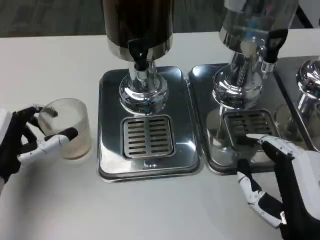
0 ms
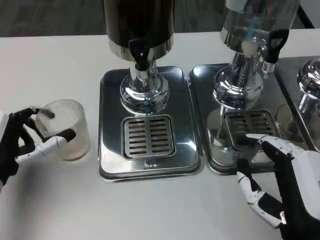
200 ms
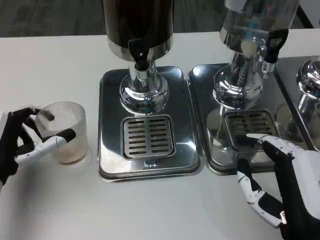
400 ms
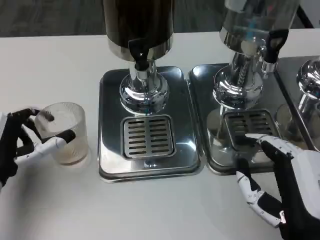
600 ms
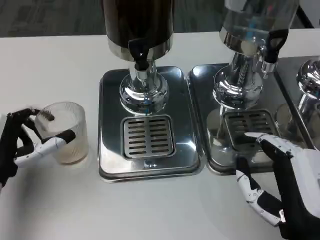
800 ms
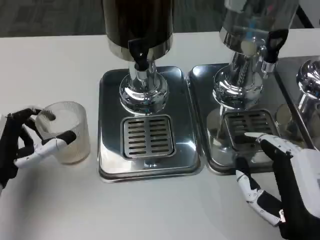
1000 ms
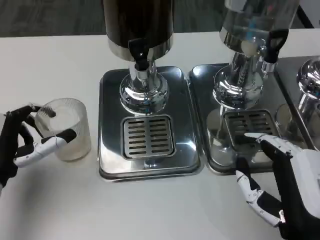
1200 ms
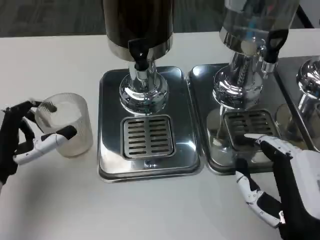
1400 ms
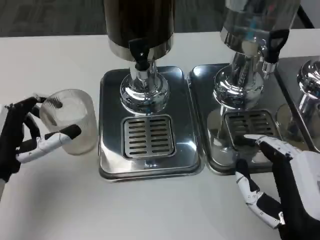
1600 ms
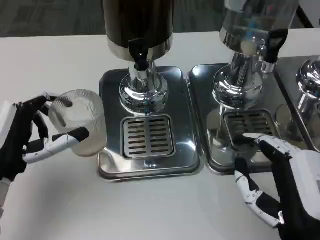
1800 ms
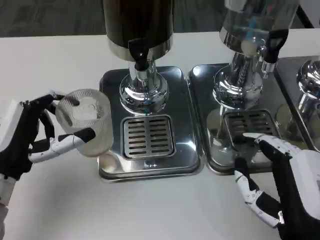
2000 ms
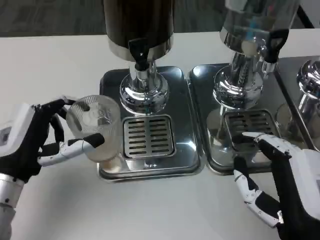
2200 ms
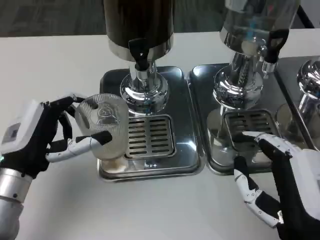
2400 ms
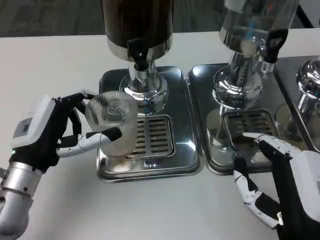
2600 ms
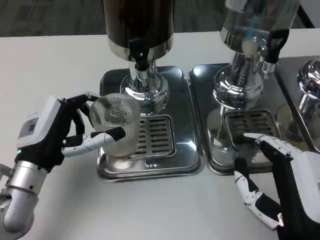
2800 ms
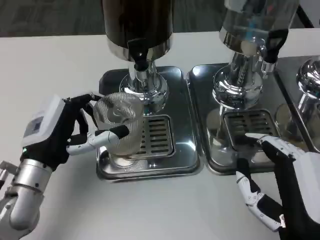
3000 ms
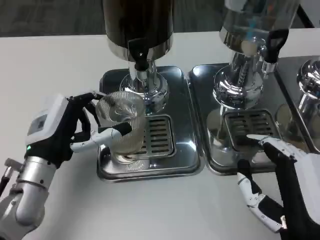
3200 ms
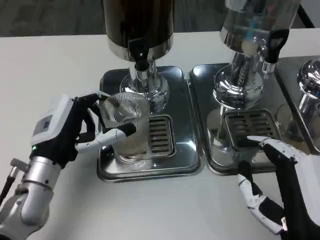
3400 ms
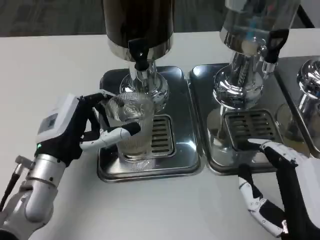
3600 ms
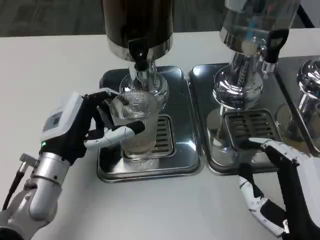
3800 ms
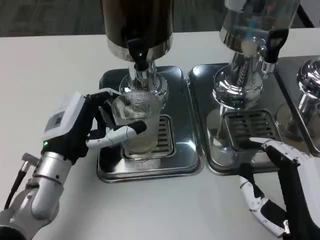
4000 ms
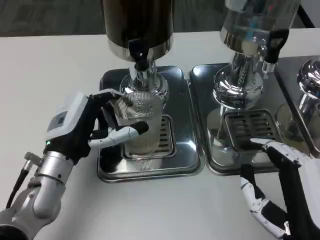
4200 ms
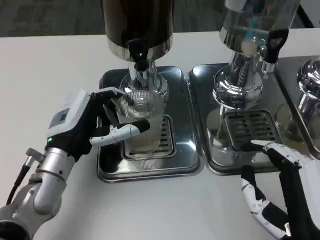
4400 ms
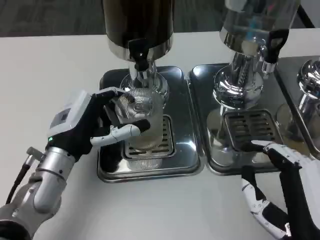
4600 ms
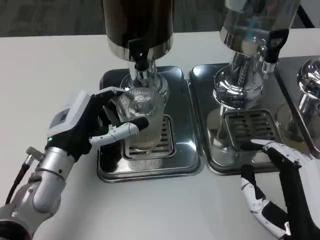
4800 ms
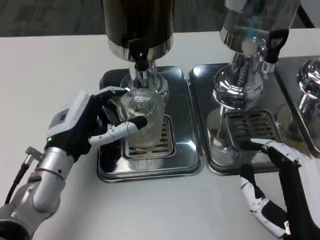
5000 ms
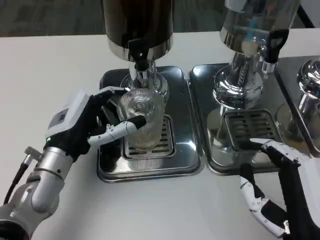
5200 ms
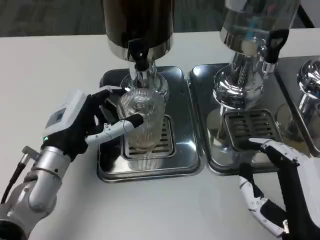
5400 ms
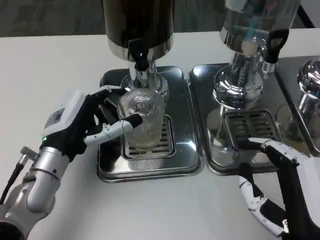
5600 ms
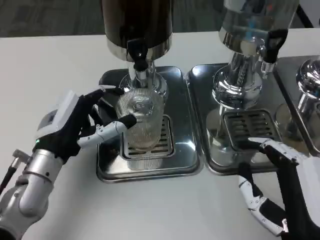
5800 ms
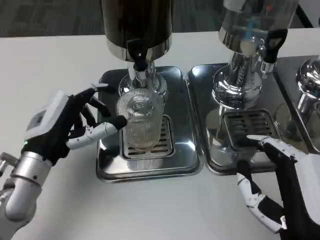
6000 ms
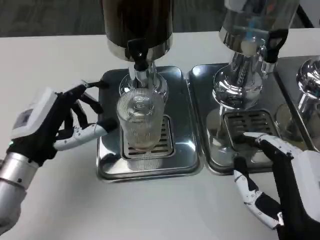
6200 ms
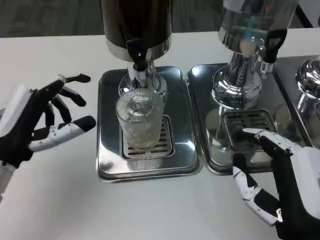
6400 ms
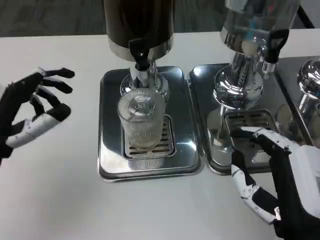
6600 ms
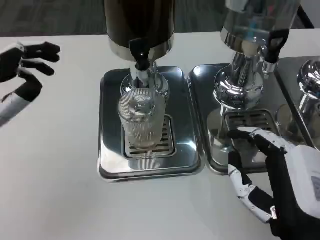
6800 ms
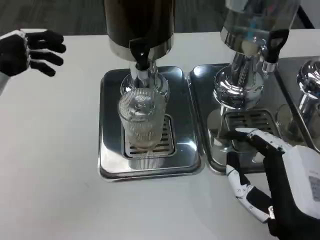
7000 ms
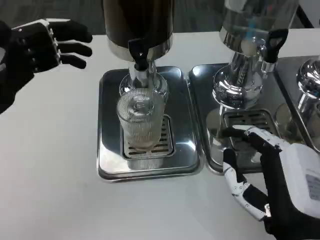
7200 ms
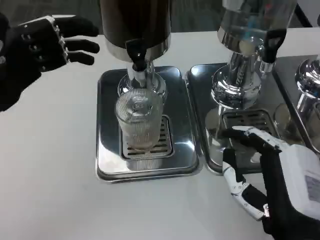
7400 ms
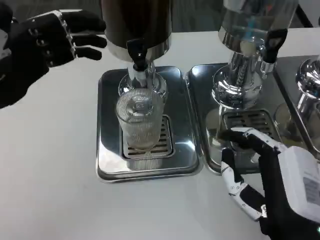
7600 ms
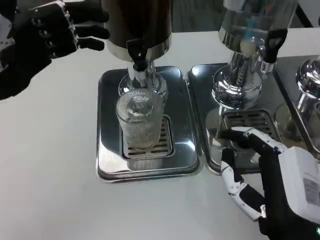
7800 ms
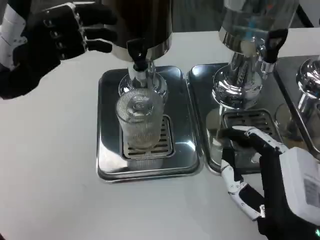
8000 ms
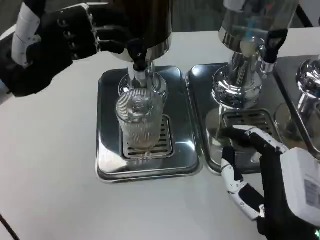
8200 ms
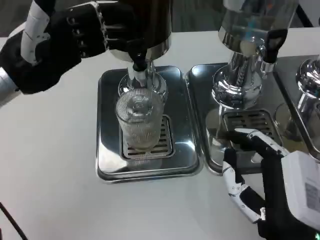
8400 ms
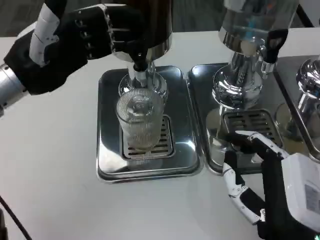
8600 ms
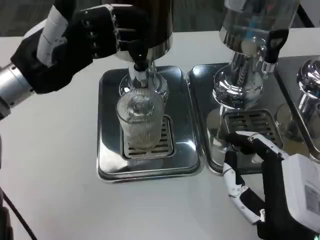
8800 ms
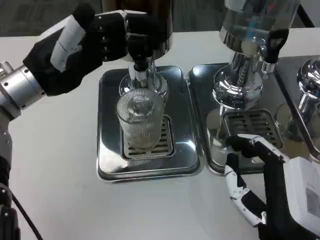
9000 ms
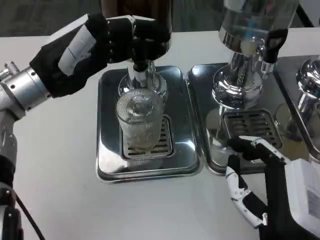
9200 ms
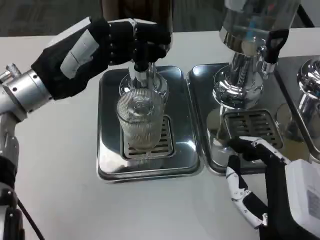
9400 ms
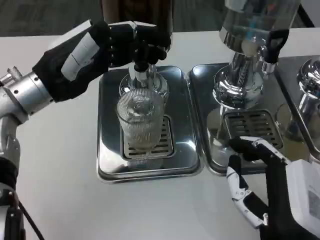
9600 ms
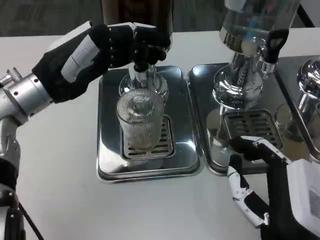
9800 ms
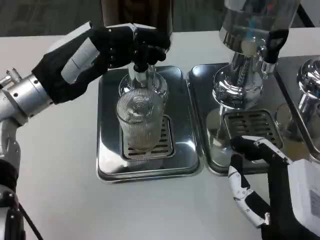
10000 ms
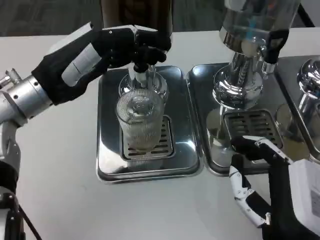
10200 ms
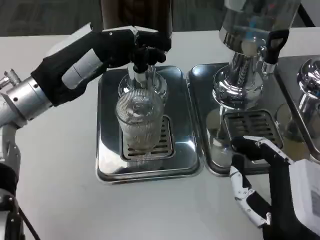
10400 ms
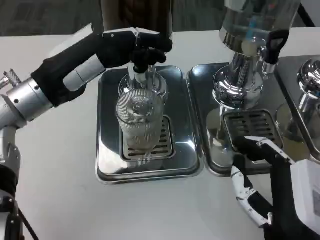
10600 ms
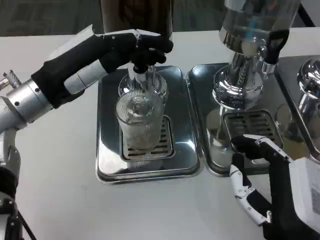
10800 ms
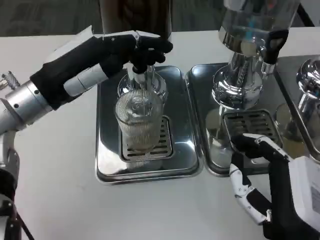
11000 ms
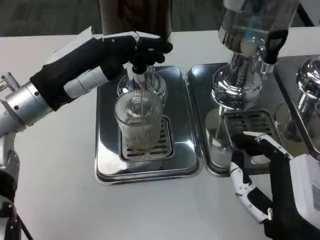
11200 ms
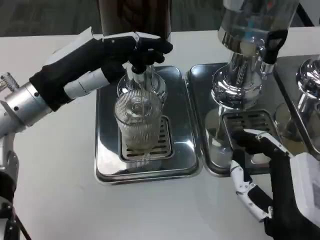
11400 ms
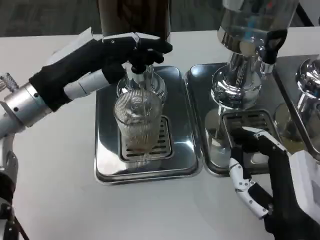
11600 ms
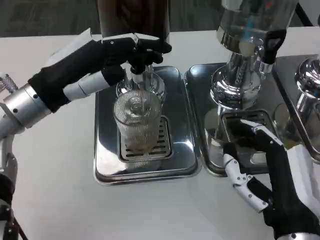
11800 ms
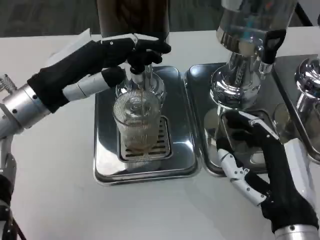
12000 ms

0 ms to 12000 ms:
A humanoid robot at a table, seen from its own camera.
Task of the whole recording: Grasp the cup under the faucet to collect the drink, then remove the cup.
0 ms to 1600 ms: The hands stay close to where they were, moving slightly.
1600 ms to 3000 ms: The left hand moves to the right, roughly 5 cm.
3000 ms to 6000 ms: The hands make only small movements.
6000 ms to 7600 ms: The left hand moves upward and to the left, about 15 cm.
7600 ms to 9000 ms: The left hand travels to the right by approximately 5 cm.
9000 ms to 10400 ms: There are only small adjustments of the hands.

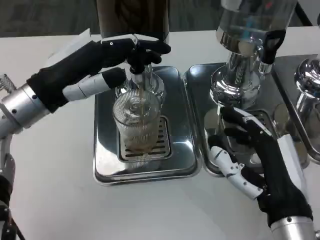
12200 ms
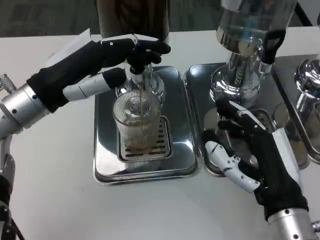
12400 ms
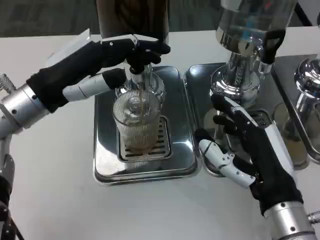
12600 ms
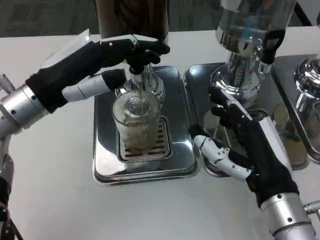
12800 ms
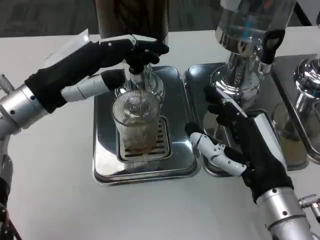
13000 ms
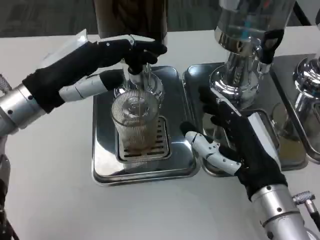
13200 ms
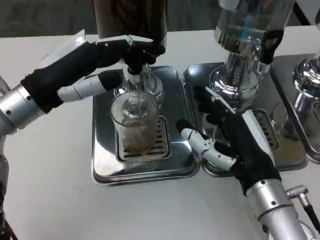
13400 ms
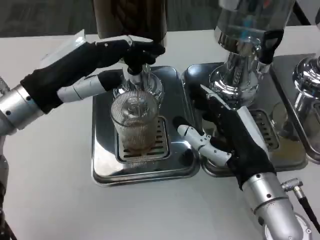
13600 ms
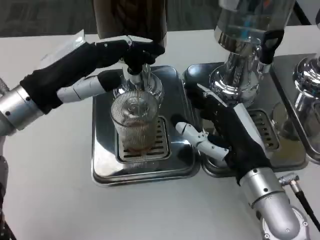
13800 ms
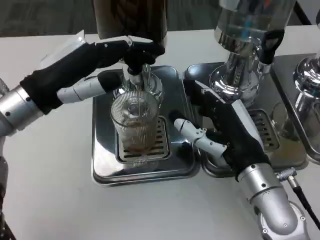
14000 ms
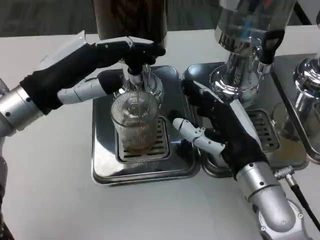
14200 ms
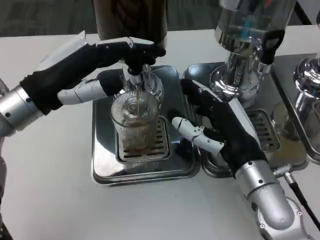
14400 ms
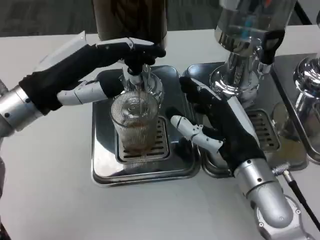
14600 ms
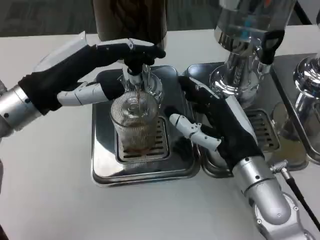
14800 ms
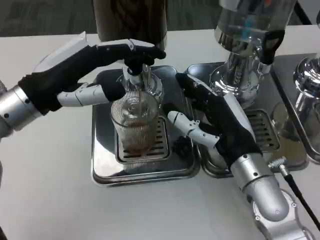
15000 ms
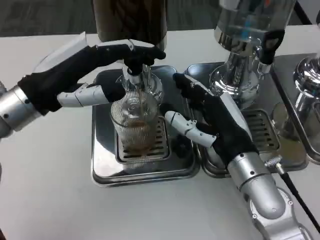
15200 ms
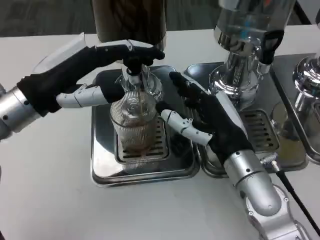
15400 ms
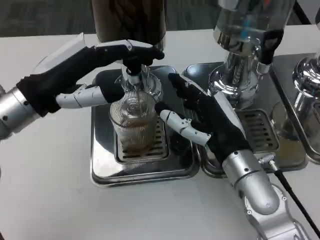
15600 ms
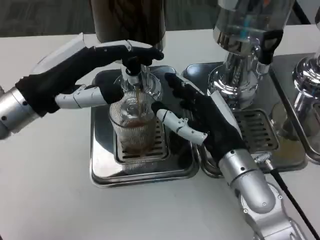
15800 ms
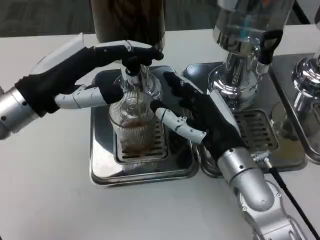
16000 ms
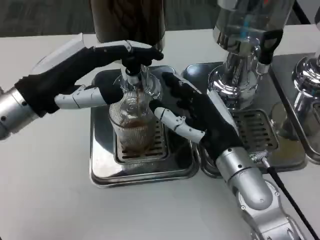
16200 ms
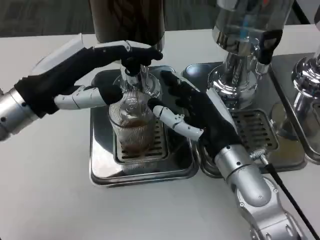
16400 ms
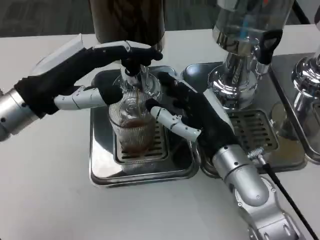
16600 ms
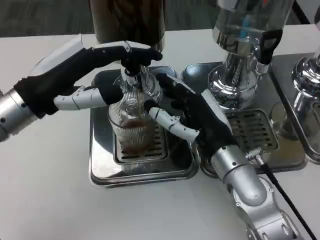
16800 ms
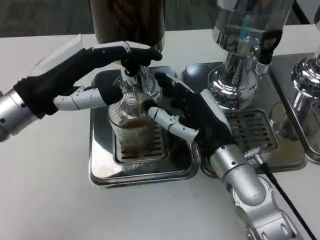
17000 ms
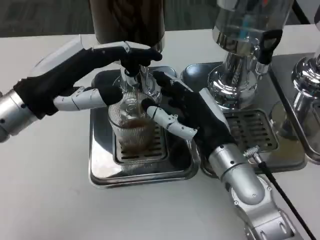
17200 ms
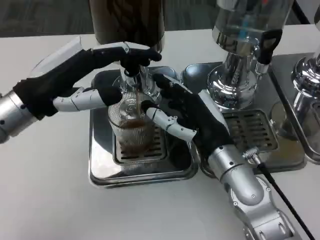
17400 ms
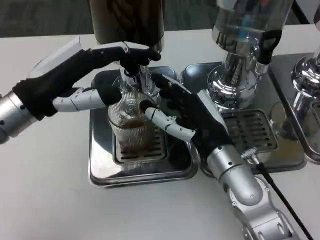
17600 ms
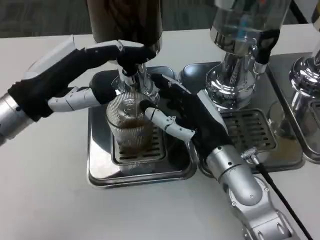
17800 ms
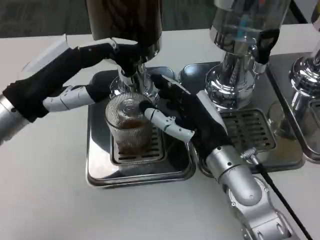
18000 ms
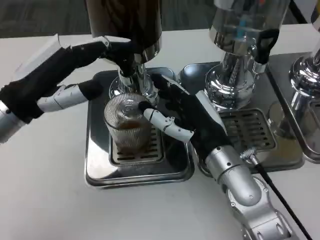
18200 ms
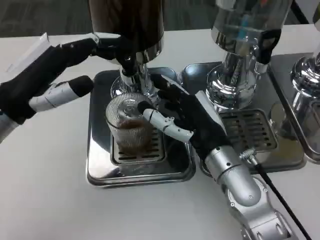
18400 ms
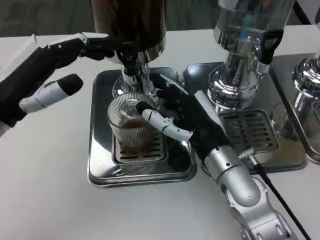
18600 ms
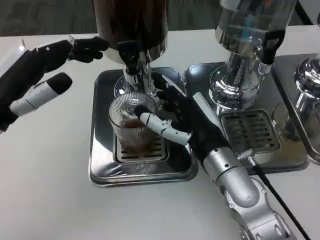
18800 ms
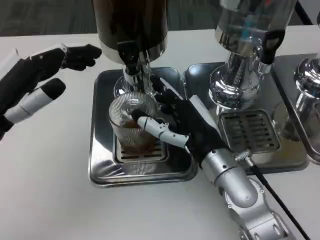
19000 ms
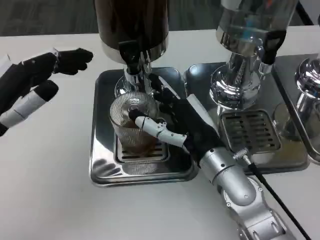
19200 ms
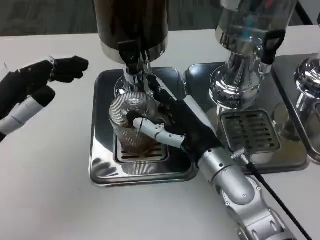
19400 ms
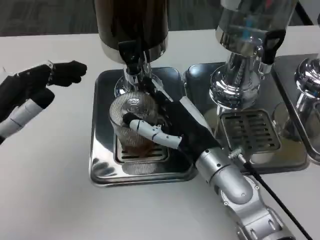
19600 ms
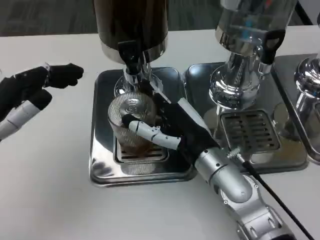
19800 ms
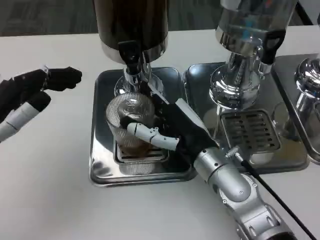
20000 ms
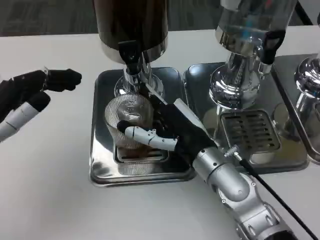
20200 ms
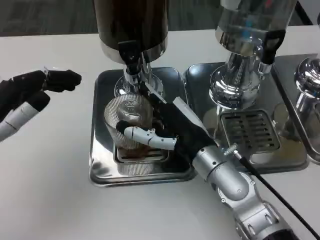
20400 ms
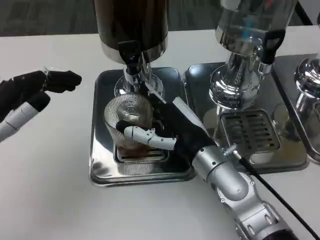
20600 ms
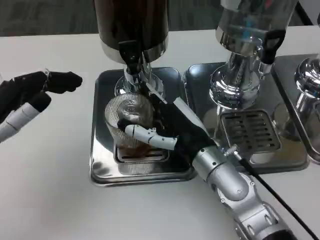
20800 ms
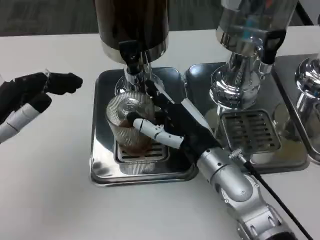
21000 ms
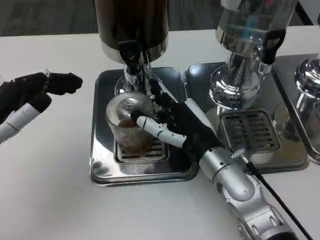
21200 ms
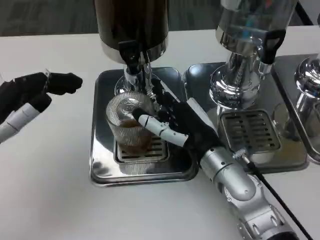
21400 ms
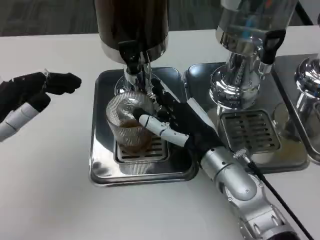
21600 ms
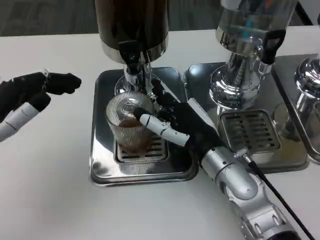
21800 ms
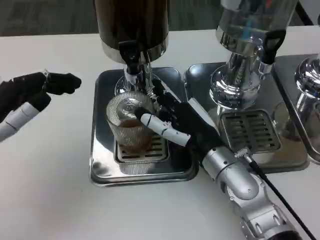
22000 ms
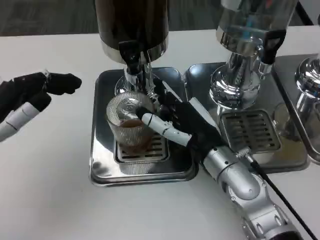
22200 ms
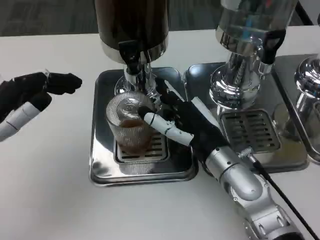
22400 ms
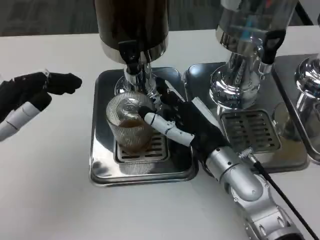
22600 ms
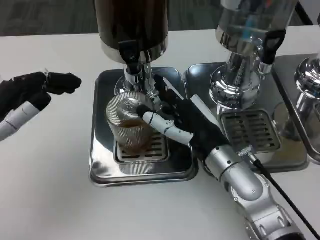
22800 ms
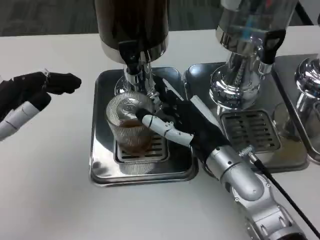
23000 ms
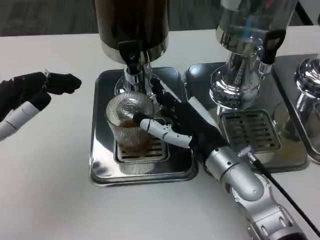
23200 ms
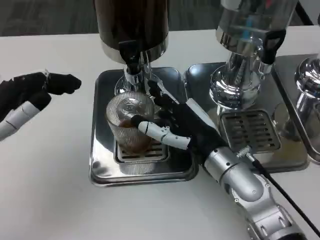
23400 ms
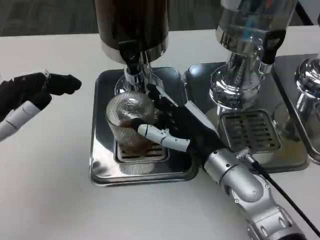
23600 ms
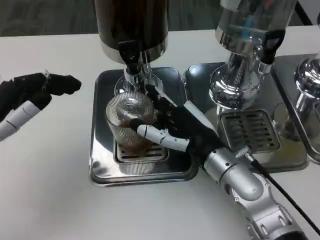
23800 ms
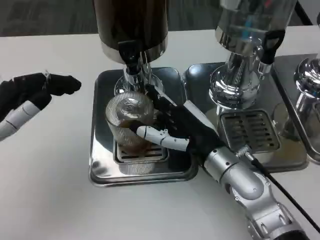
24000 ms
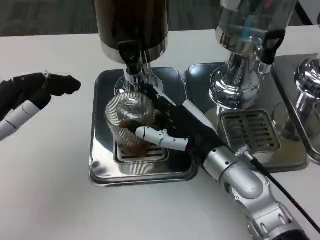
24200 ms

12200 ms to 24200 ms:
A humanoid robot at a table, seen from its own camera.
Task of the whole recording: Grasp the cup under the faucet to collect the drink, then remove the cup.
12200 ms to 13800 ms: The right hand moves forward, roughly 5 cm.
13800 ms to 15200 ms: The hands stay close to where they were, moving slightly.
18200 ms to 19800 ms: The left hand moves about 5 cm.
19800 ms to 21200 ms: The two hands keep their place.
21200 ms to 22600 ms: The two hands keep their place.
22600 ms to 24200 ms: The hands move only a little.
